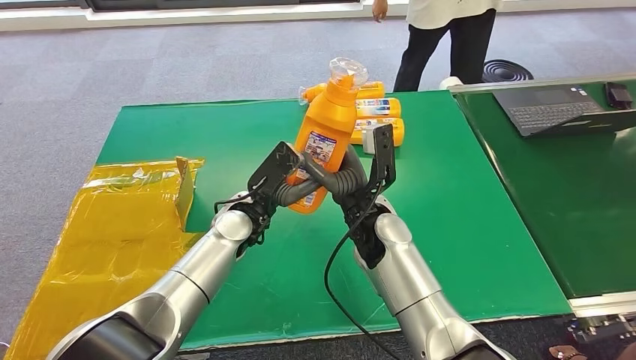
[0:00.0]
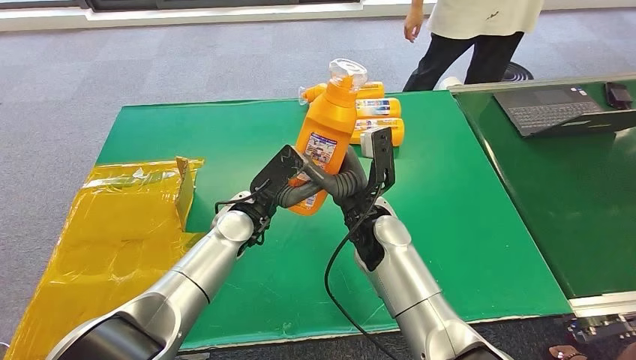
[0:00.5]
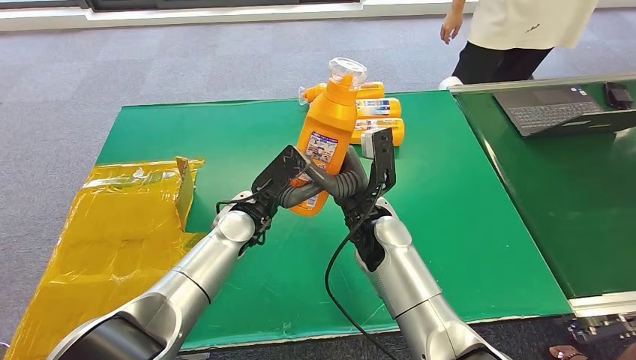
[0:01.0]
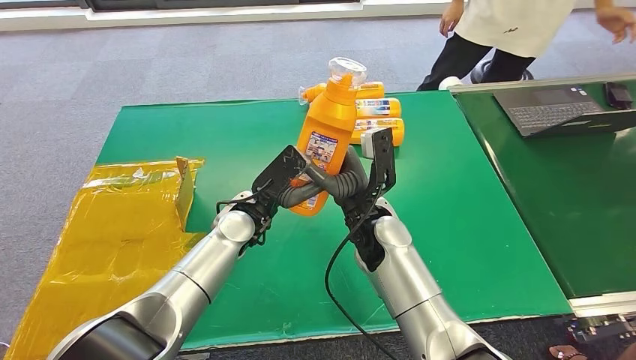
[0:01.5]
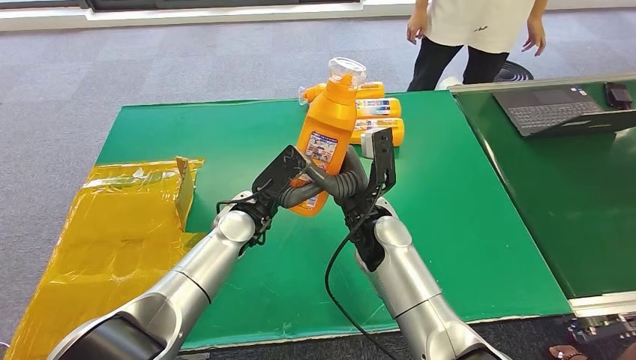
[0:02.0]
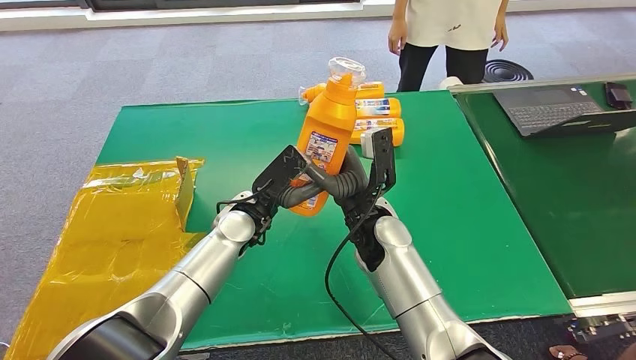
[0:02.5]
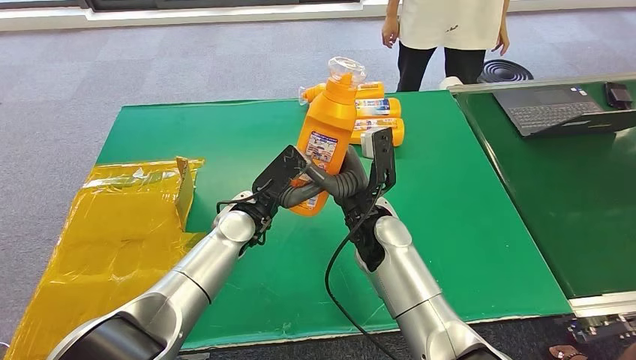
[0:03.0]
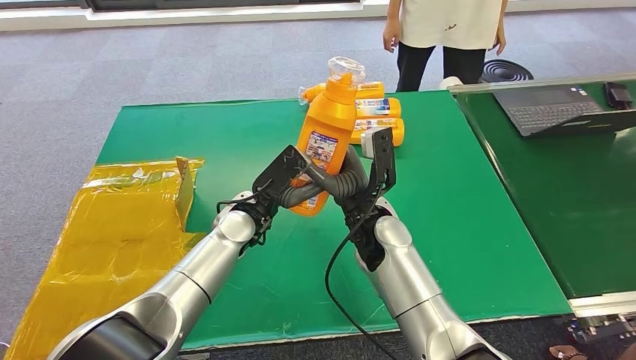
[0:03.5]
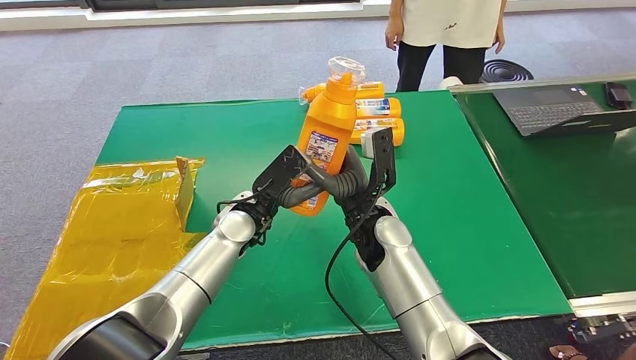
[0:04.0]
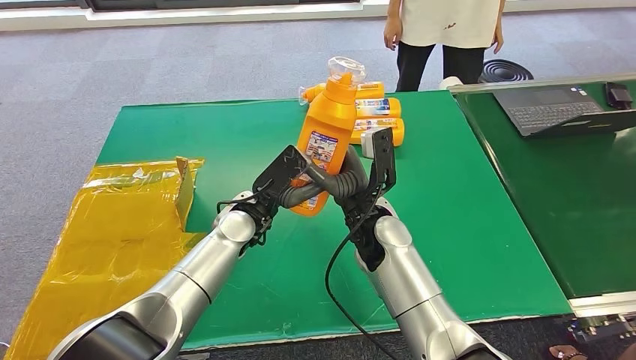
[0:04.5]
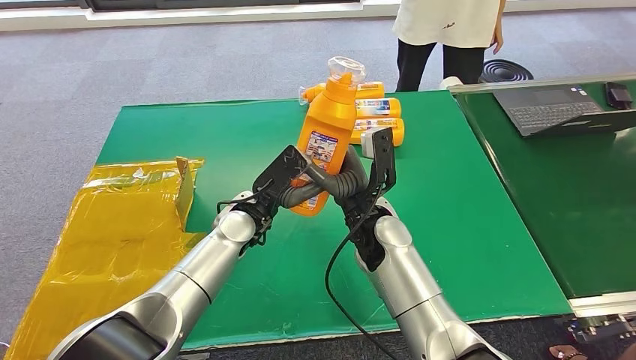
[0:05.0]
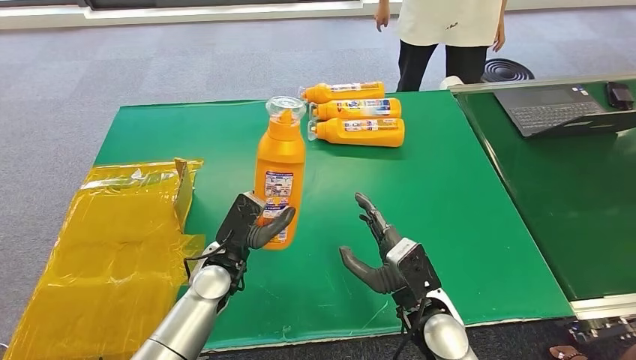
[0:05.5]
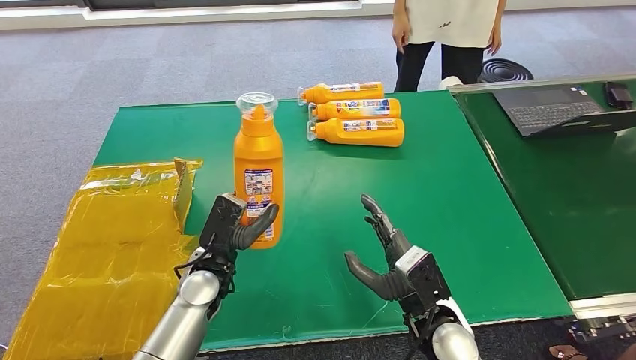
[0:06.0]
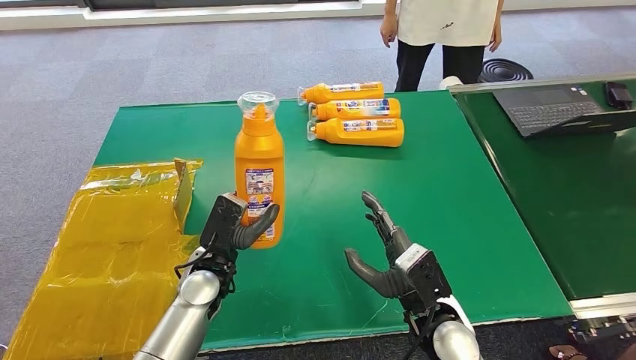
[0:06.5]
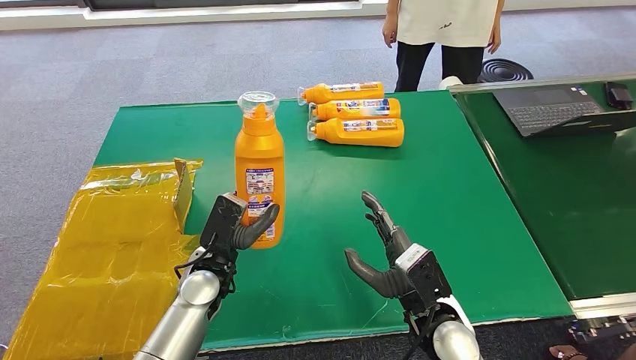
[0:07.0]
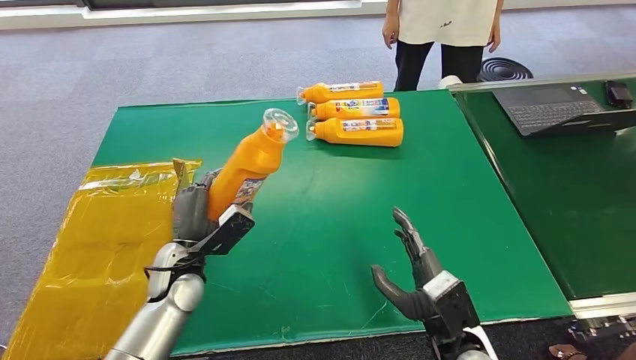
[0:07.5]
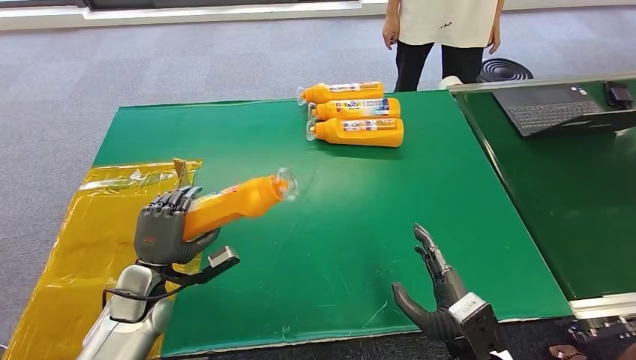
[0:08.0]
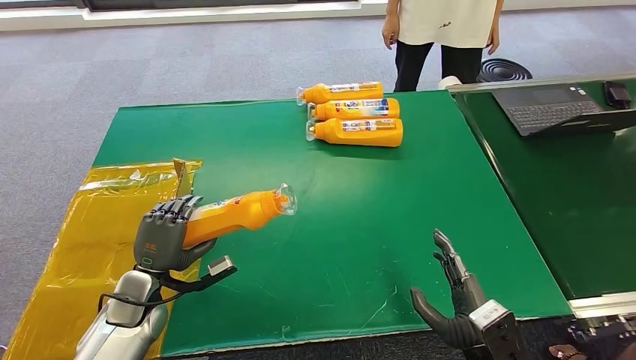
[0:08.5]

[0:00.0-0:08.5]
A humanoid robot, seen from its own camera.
Step, 0:01.5 to 0:08.5: Turn the bottle to the front side.
0:00.0 to 0:04.0: The two hands keep their place.
0:06.5 to 0:08.5: The right hand shifts about 10 cm backward and to the right. Meanwhile the left hand heads to the left, covering roughly 15 cm.
